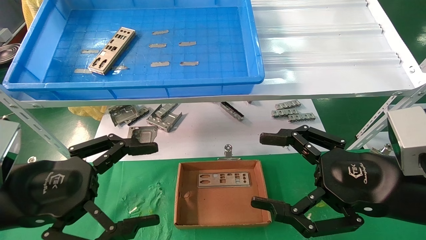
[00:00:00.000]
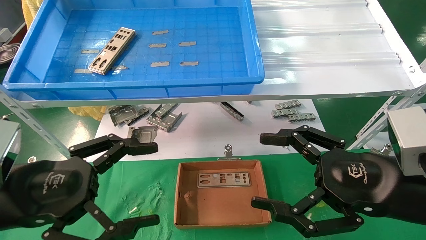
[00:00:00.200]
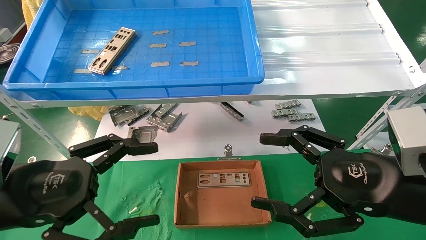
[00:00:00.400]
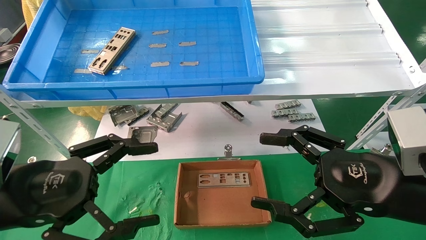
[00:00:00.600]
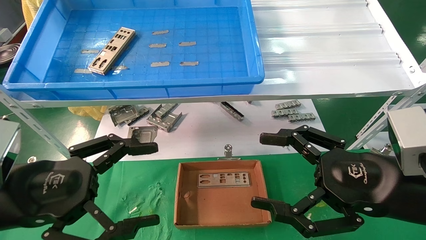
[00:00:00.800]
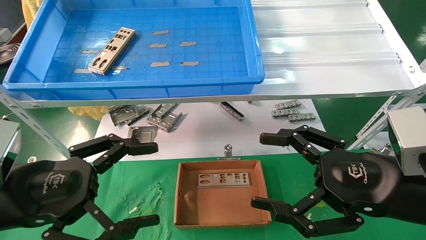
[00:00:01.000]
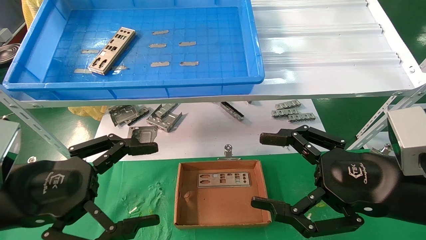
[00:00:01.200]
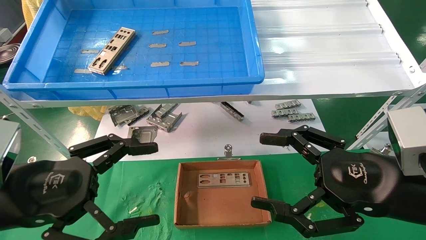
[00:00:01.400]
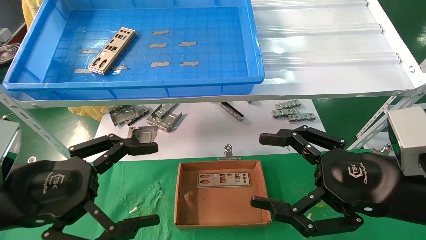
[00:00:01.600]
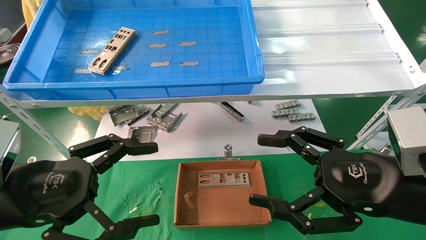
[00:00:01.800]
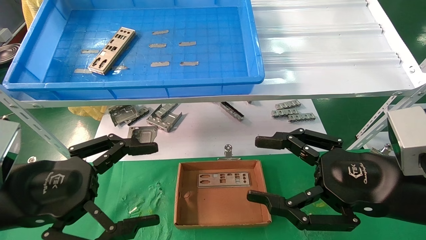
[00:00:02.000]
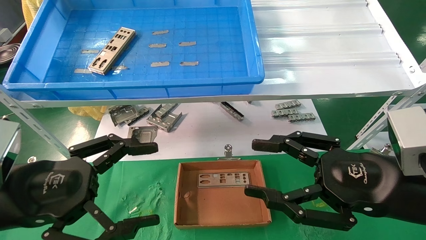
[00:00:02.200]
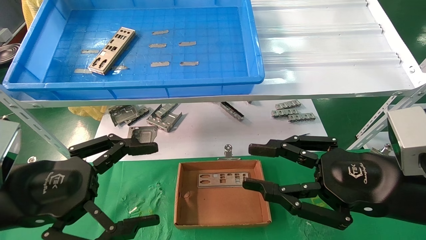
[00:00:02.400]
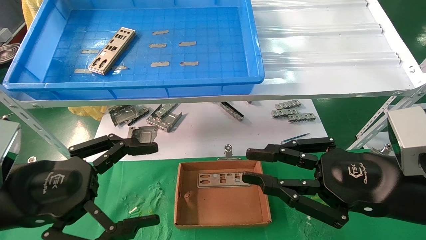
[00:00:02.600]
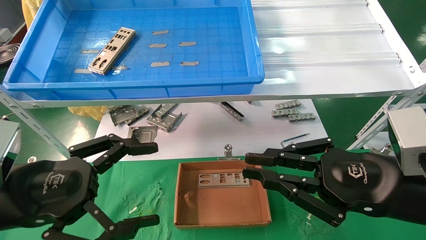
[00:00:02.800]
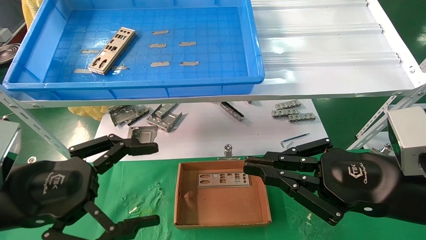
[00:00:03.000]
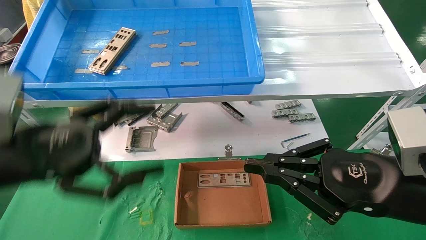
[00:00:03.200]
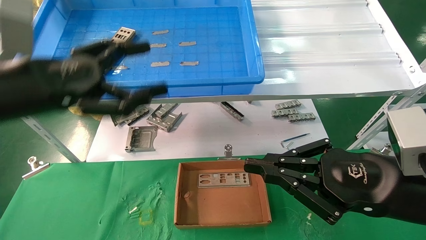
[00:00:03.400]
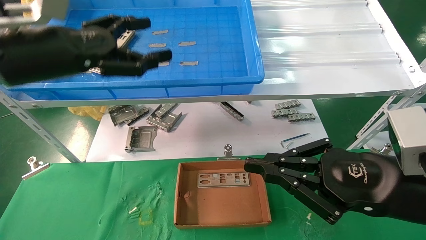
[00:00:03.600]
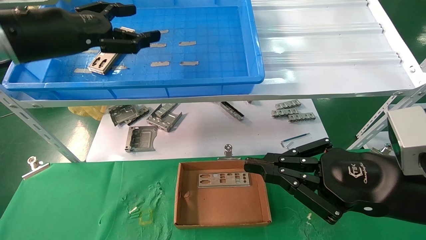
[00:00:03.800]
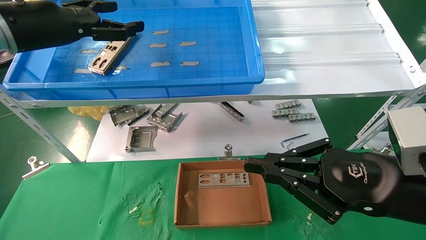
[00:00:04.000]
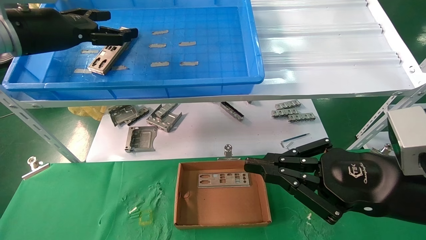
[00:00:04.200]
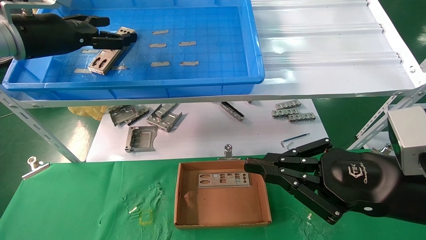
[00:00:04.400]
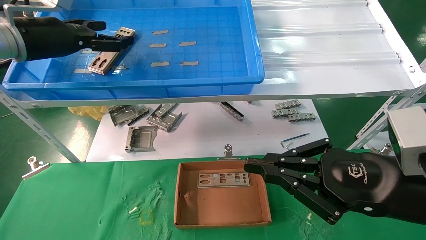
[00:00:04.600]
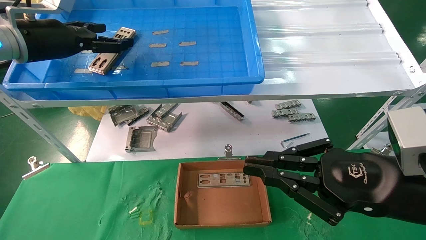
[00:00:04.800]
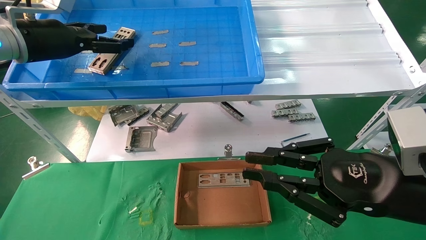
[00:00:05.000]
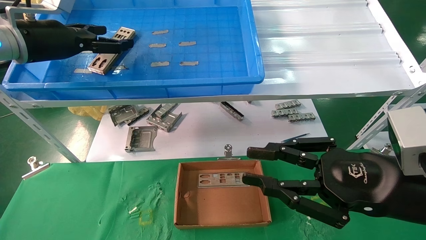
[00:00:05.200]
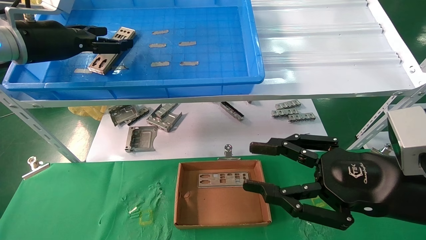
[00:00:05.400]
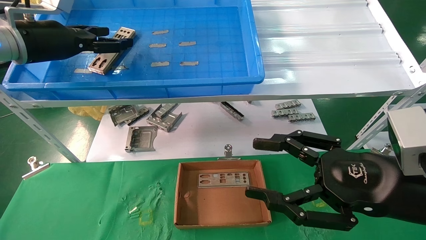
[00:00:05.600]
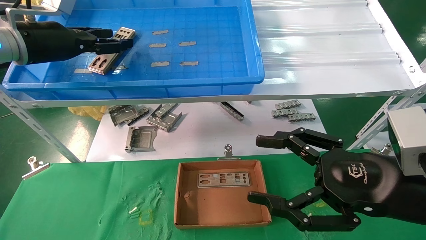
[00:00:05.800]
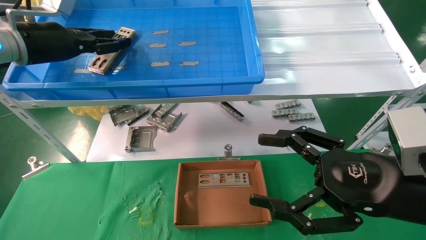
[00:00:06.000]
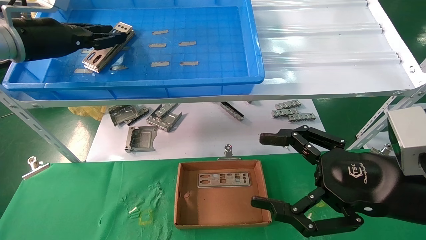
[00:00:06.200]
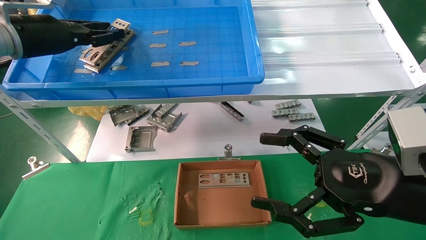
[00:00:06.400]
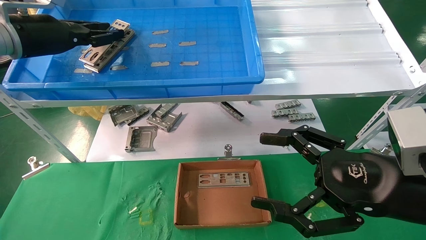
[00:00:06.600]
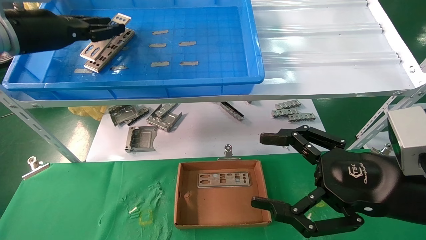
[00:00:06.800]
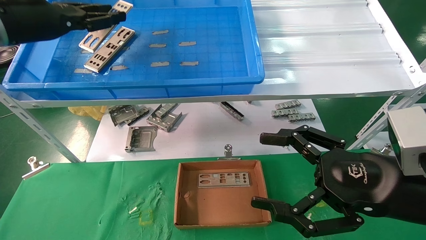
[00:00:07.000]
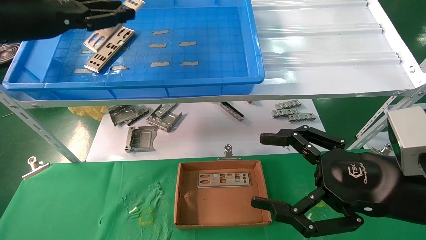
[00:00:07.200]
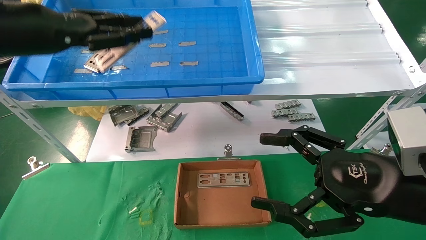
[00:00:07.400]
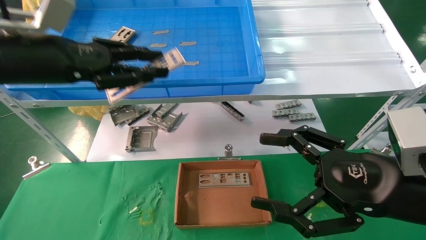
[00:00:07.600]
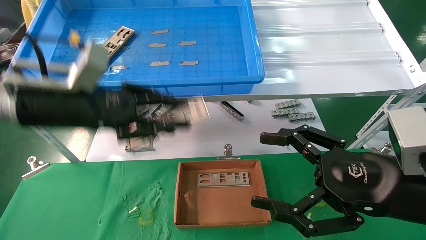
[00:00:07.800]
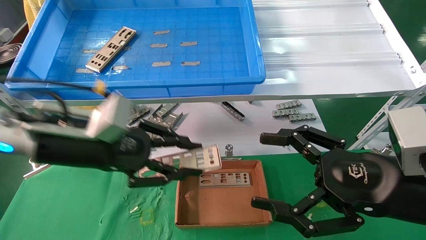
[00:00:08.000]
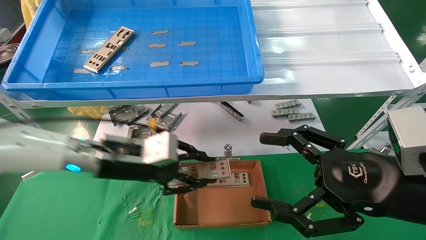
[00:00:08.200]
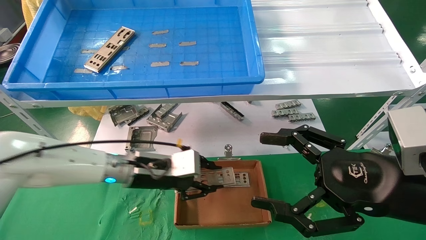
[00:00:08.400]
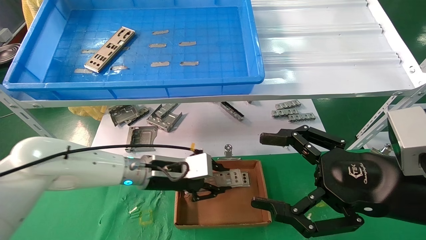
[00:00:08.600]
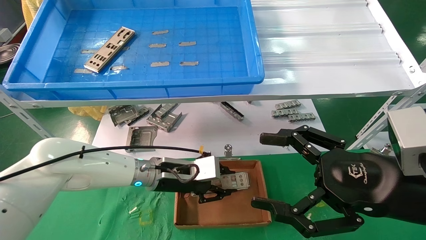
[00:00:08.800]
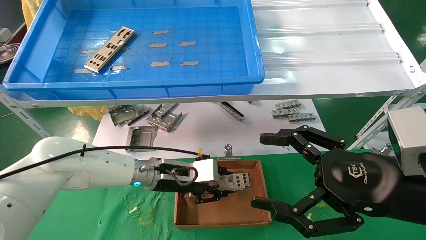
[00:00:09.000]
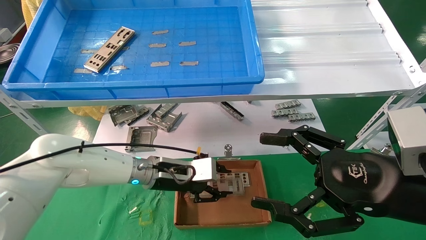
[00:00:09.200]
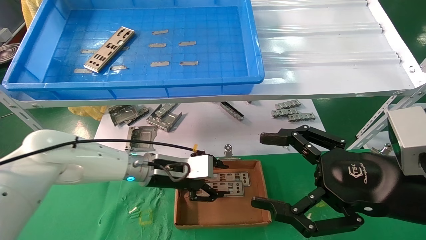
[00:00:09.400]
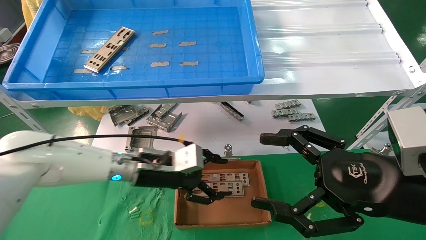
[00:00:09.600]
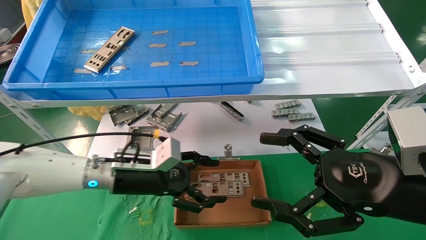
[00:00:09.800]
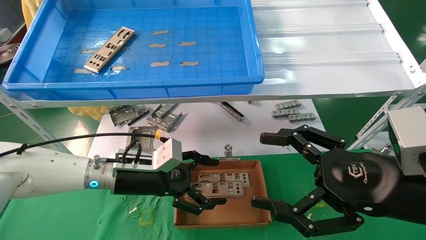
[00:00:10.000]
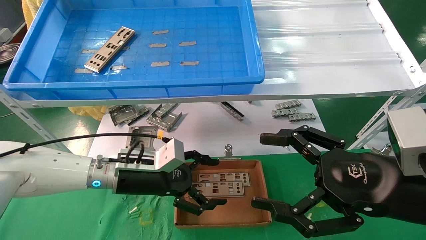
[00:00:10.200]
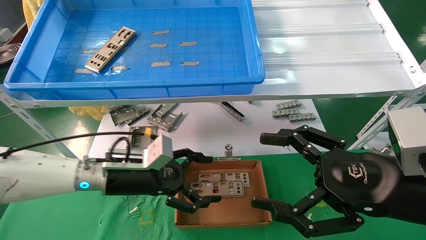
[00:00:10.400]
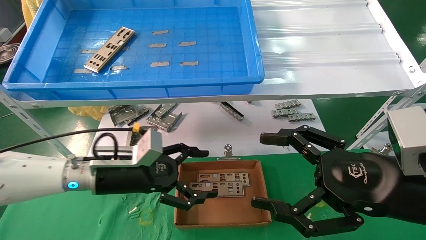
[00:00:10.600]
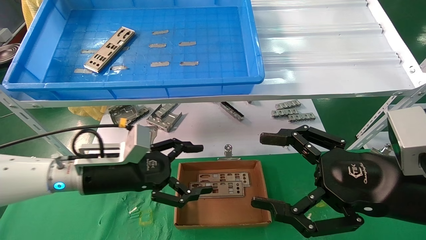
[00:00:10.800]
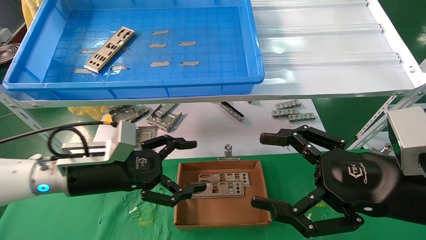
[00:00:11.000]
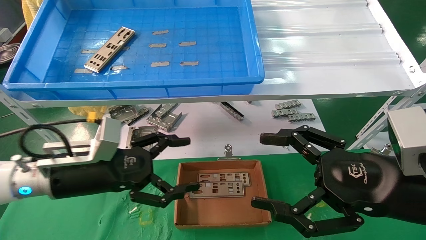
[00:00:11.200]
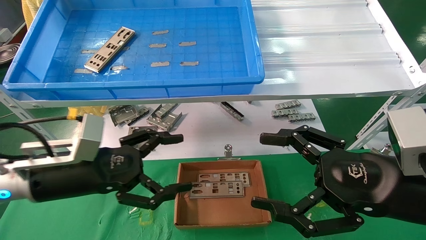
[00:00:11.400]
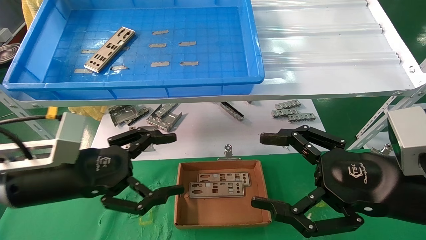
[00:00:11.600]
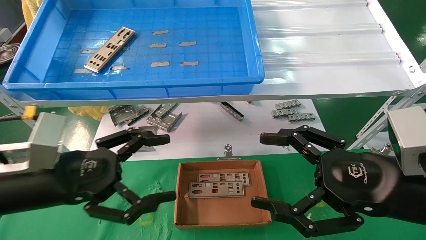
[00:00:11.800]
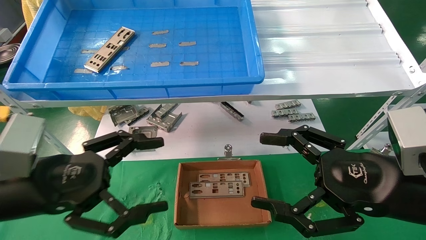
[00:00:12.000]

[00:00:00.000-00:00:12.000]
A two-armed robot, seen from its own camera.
Task of the whole recording: pick up the parts on the tray and put them in the cardboard box.
Step, 00:00:03.400 to 00:00:06.200: Pick up the IO bracket from the container box.
Step, 00:00:06.400 to 00:00:09.200: Place the IO bracket into the ingredient slot.
00:00:00.000 to 00:00:01.600: Neither gripper changes place.
00:00:01.600 to 00:00:03.000: The right gripper closes up.
00:00:03.000 to 00:00:04.400: The left gripper is displaced forward and upward by about 25 cm.
00:00:04.400 to 00:00:06.000: The right gripper opens; the left gripper closes its fingers.
00:00:06.000 to 00:00:07.600: The left gripper is displaced backward and to the right by some 10 cm, and closes its fingers.
00:00:07.600 to 00:00:09.000: The left gripper shifts approximately 30 cm downward and to the right.
00:00:09.000 to 00:00:10.400: The left gripper is displaced to the left and backward by approximately 10 cm, and opens its fingers.
00:00:10.400 to 00:00:12.000: The left gripper travels backward, to the left and upward by some 20 cm.

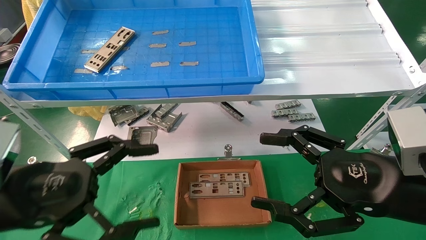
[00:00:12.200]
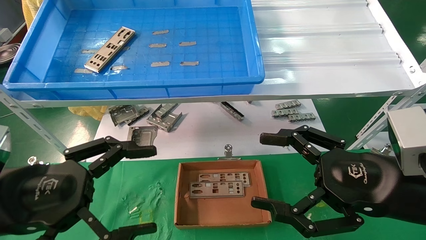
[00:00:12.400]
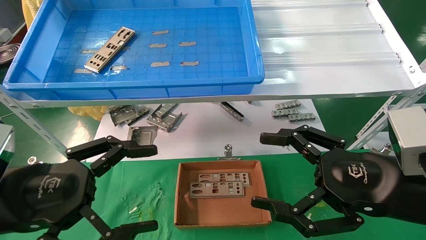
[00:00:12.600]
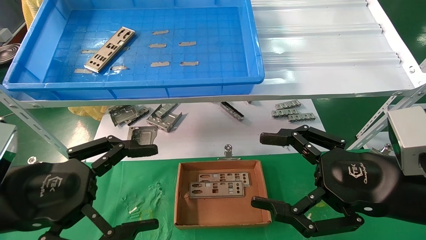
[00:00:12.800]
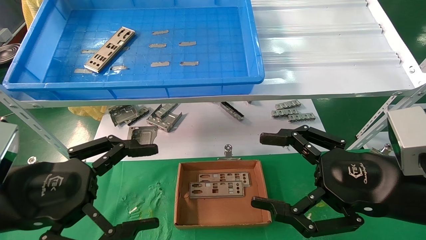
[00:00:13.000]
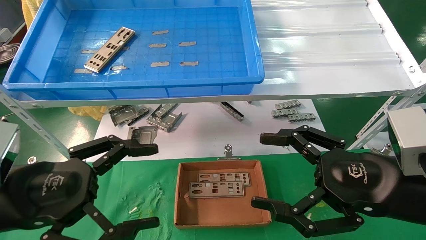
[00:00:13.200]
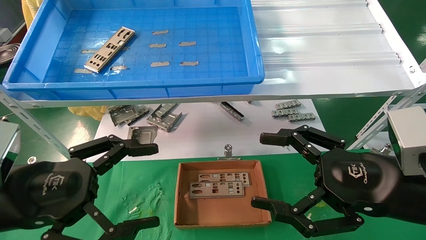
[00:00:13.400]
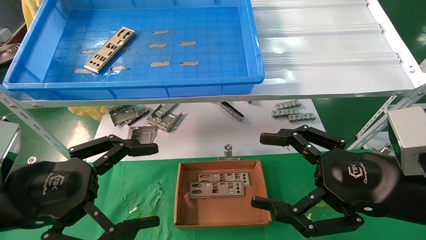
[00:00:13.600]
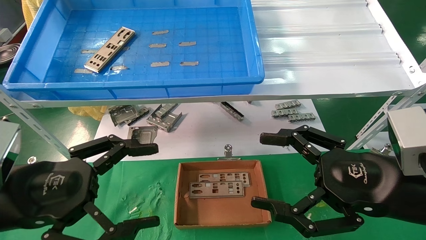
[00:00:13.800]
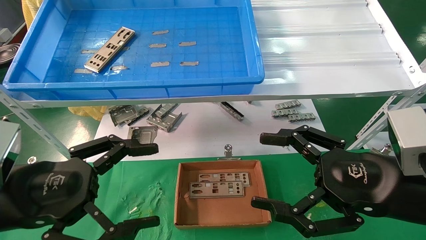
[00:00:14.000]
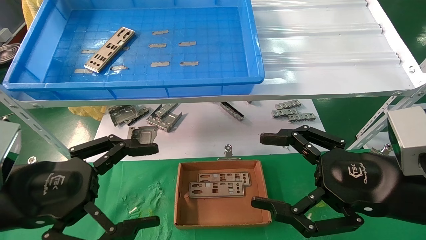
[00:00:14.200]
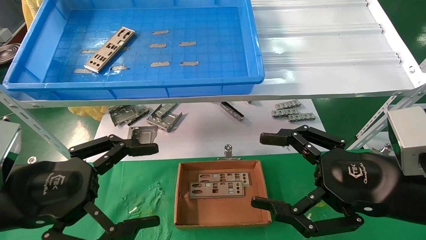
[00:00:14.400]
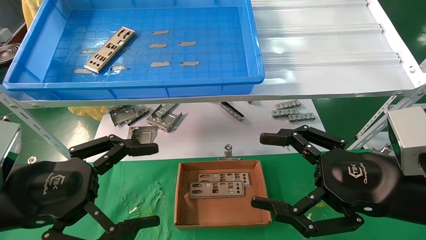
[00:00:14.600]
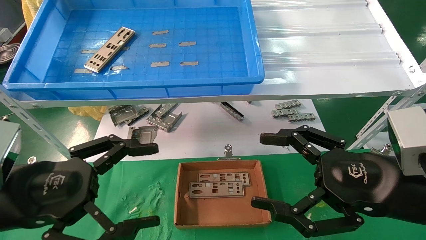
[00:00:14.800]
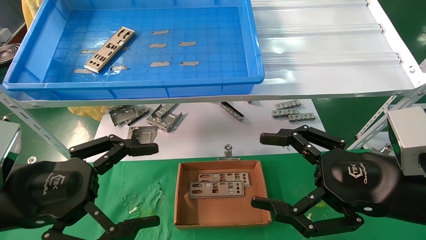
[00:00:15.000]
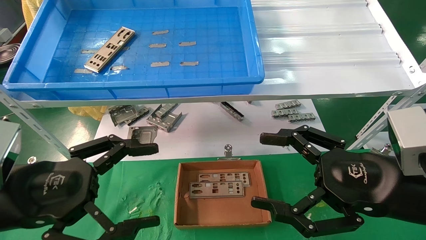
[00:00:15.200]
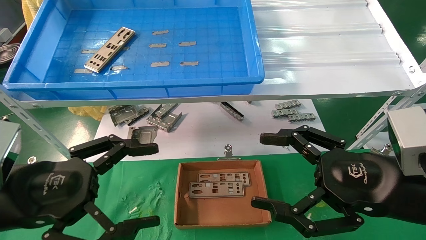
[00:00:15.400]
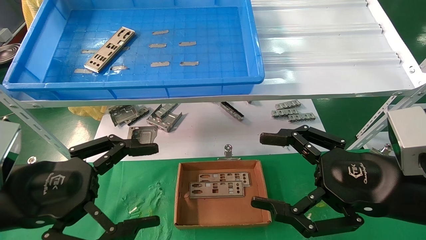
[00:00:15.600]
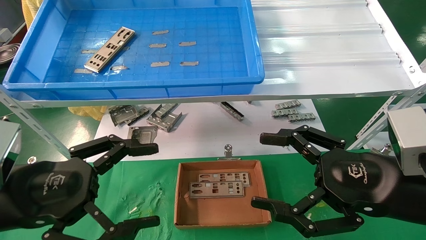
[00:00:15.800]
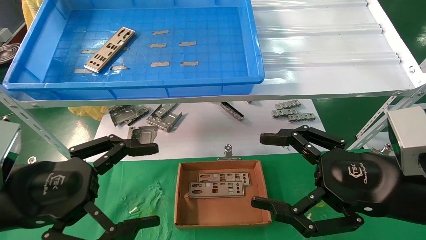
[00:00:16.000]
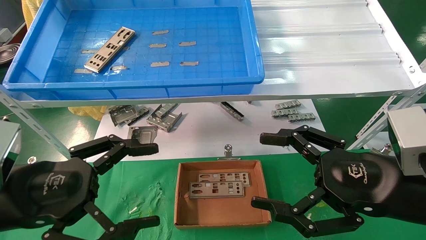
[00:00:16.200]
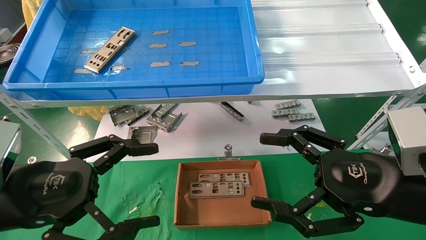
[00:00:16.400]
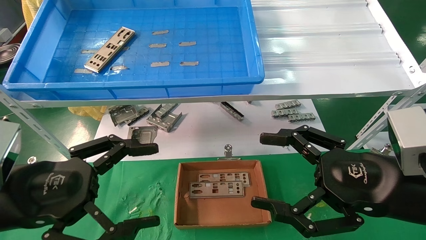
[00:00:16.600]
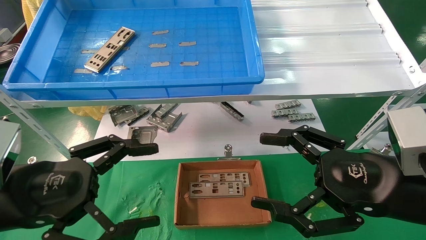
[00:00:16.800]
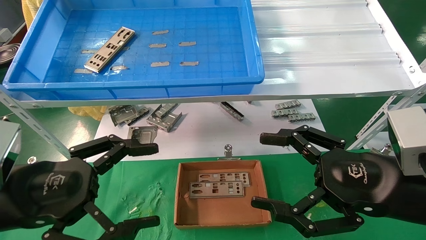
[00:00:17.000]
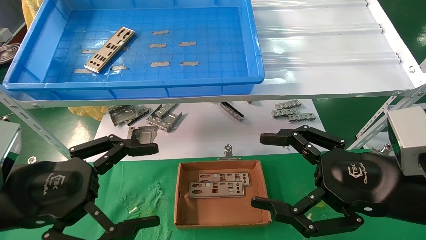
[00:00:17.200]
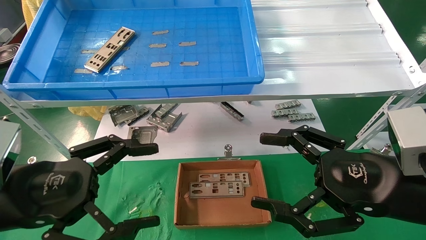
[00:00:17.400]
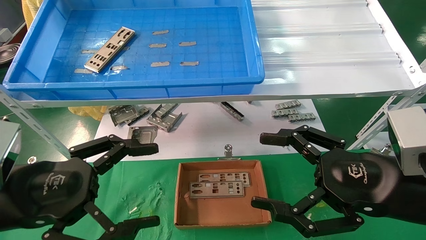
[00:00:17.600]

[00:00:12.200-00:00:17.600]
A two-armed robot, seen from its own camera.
Task of the whole recording: pick up the parts on the tray and put them in the cardboard box.
00:00:12.200 to 00:00:17.600: Both grippers stay put.
